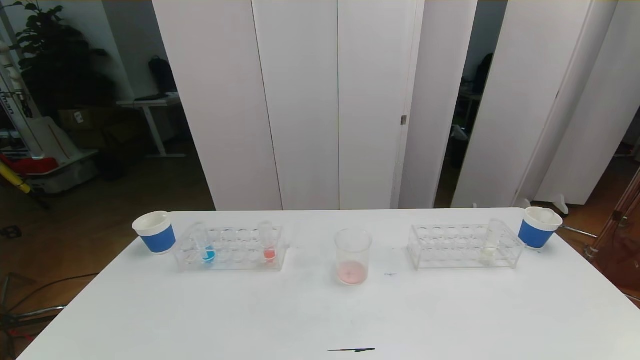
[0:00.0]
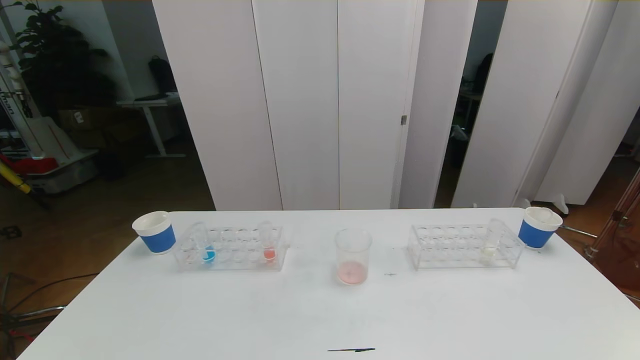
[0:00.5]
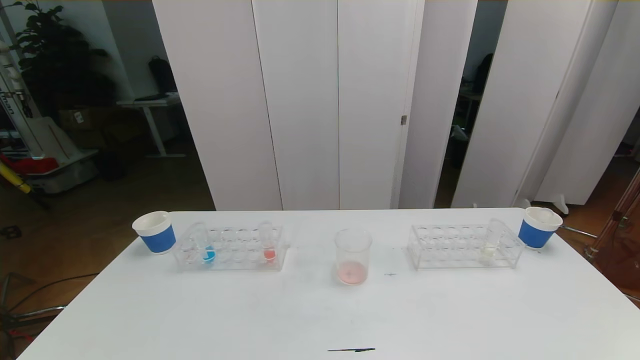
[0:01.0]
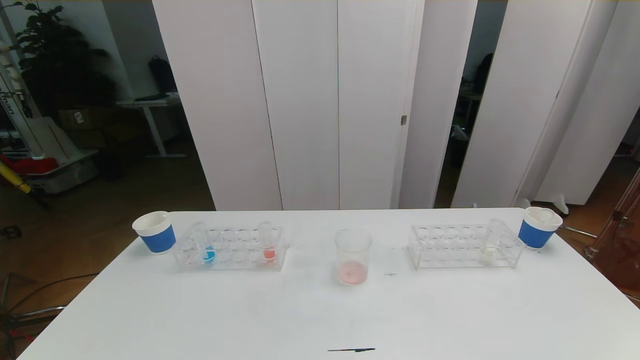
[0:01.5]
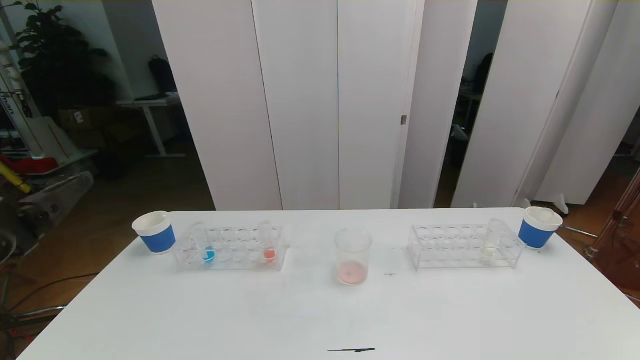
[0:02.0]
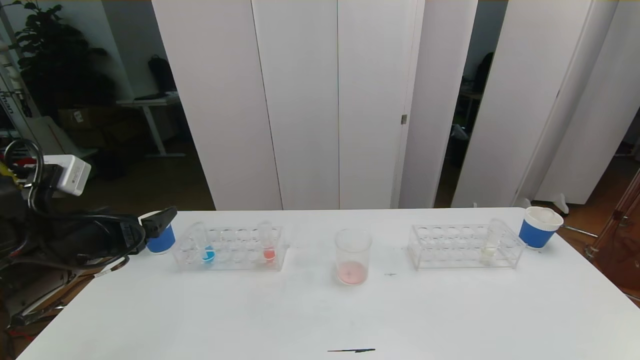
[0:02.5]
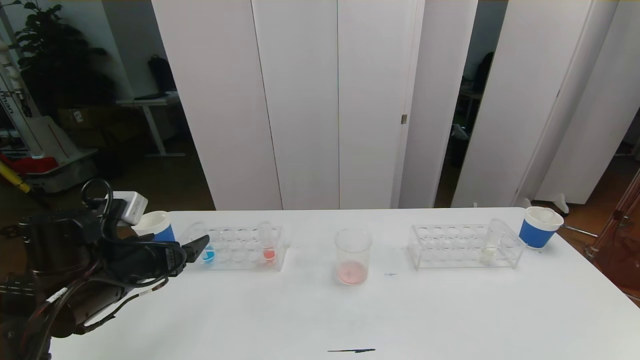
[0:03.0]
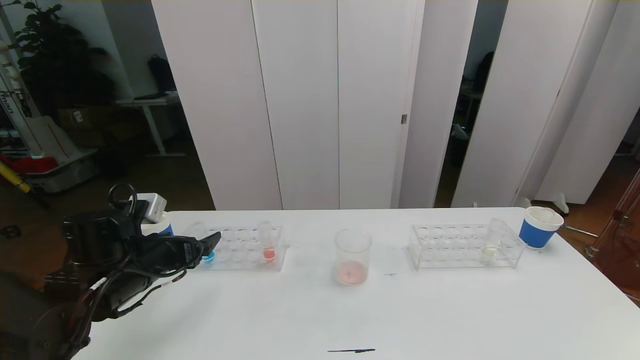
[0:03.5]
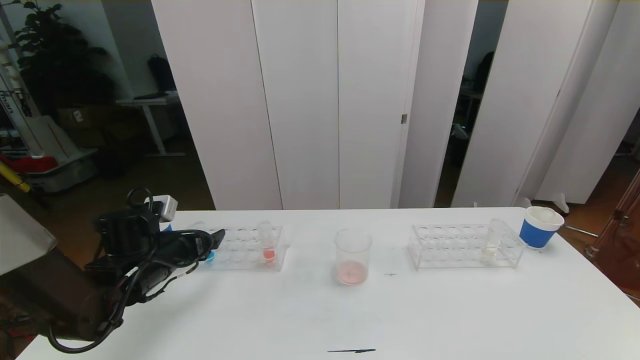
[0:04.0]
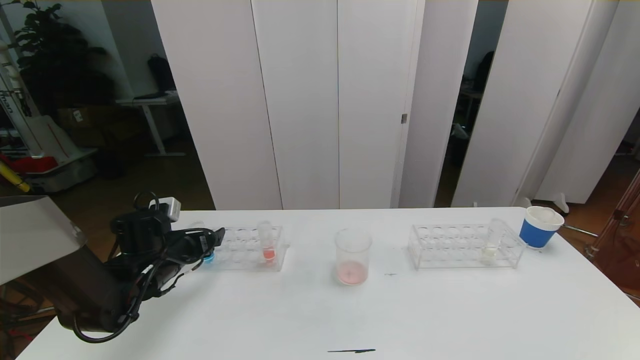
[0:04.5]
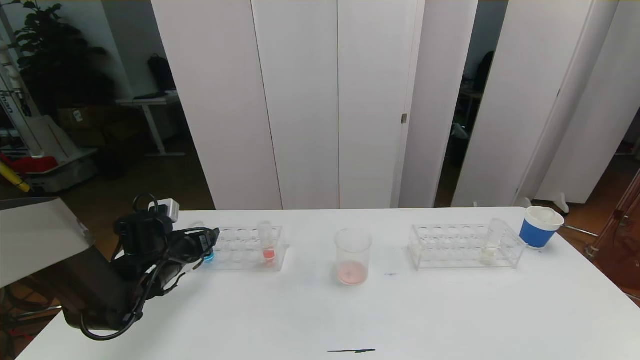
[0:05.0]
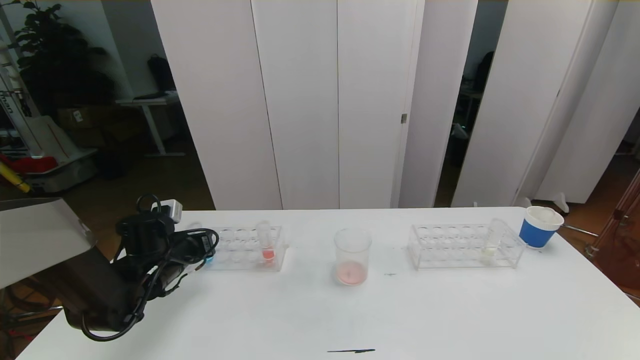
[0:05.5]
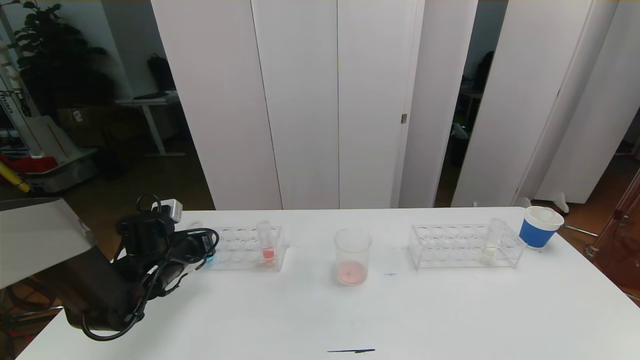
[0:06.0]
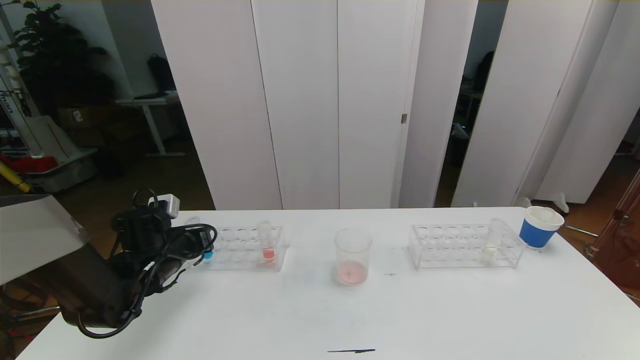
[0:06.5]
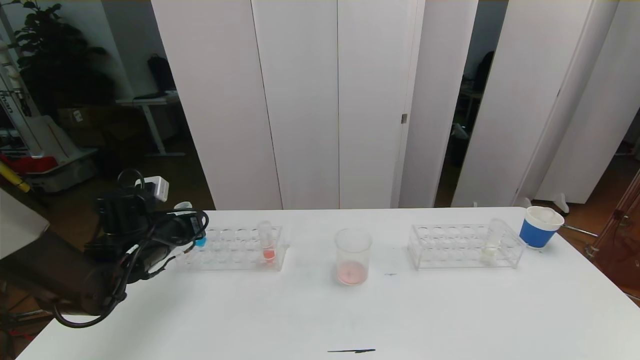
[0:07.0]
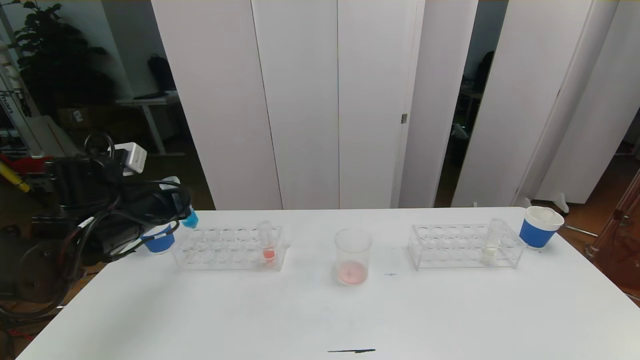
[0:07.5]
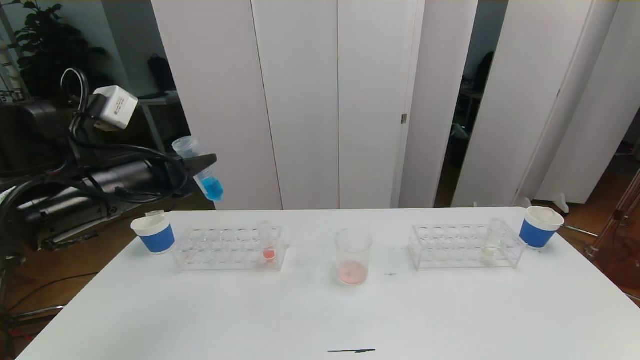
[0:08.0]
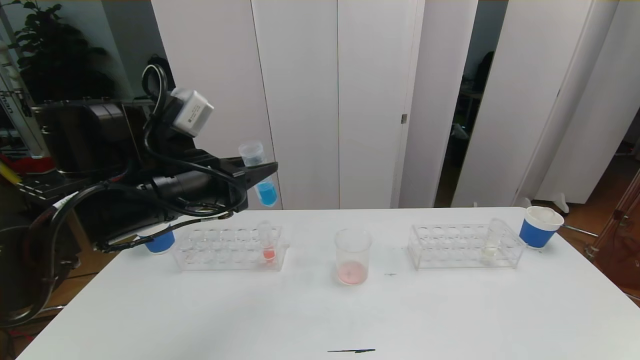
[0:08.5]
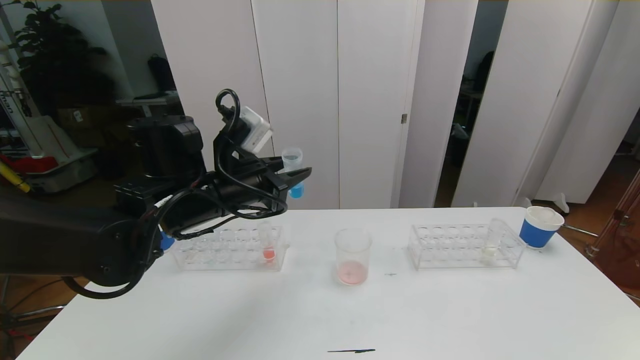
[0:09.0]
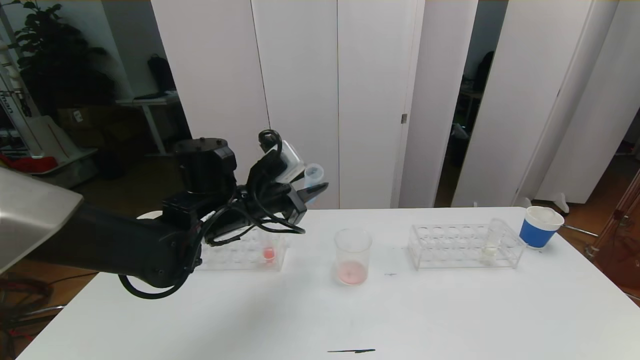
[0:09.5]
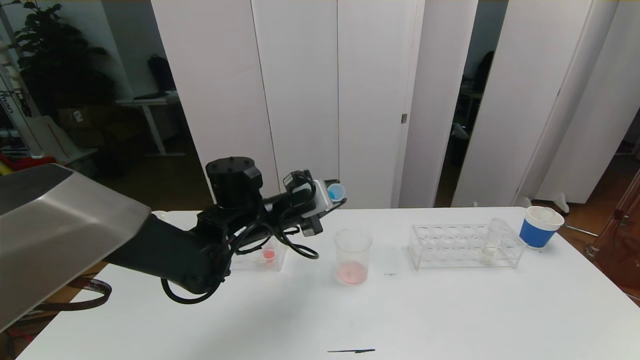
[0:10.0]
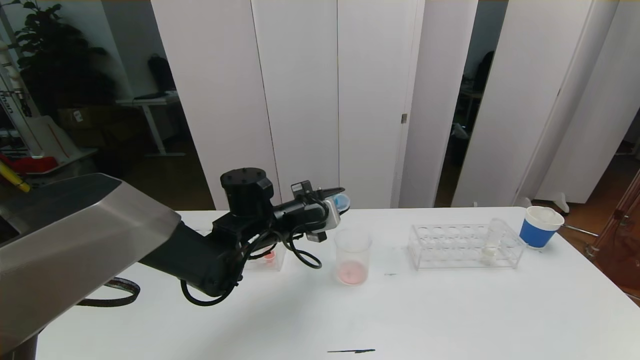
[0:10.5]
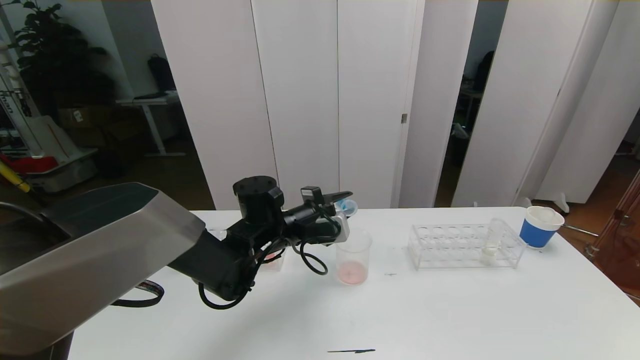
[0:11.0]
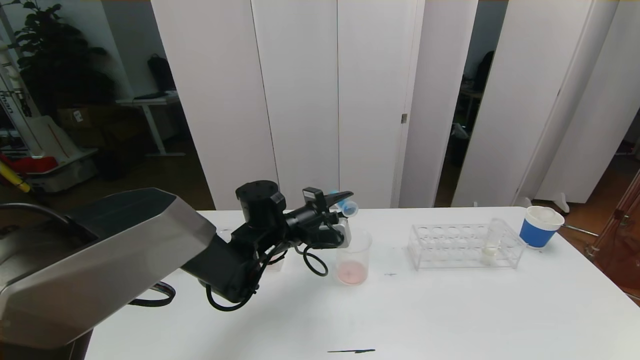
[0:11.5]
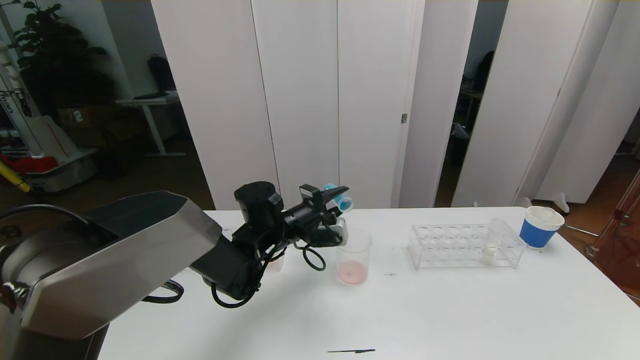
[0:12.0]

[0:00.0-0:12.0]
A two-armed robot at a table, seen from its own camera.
Task of the whole recording: pick up the test tube with red pigment the test tube with blue pigment and the test tube with white pigment by grippers and pour them into the beaker.
0:02.0 to 0:04.0: The left gripper moves forward and downward, approximately 25 cm.
0:04.0 to 0:06.0: The left gripper closes up.
0:06.0 to 0:08.0: The left gripper travels upward and backward by some 20 cm.
0:08.0 to 0:10.0: The left gripper heads to the right, downward and forward, covering about 20 cm.
0:10.0 to 0:12.0: The left gripper goes roughly 5 cm downward.

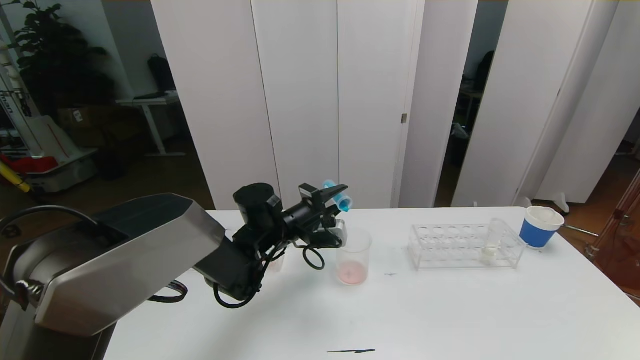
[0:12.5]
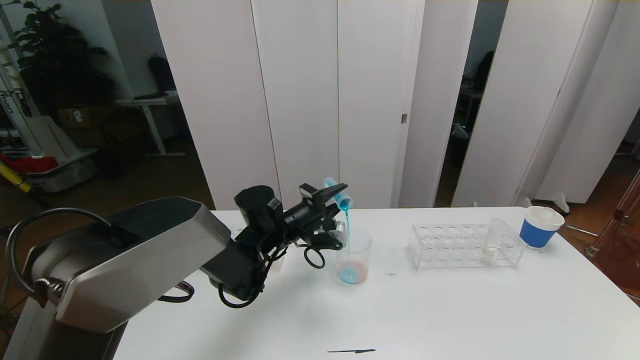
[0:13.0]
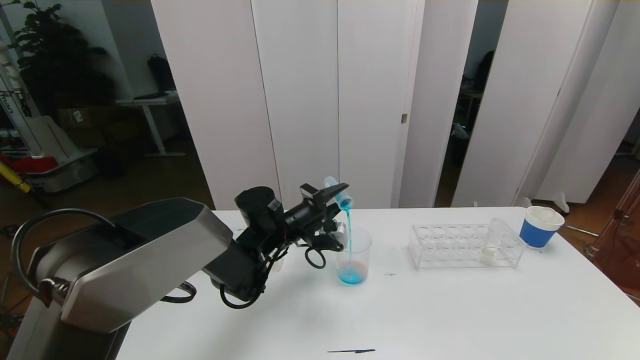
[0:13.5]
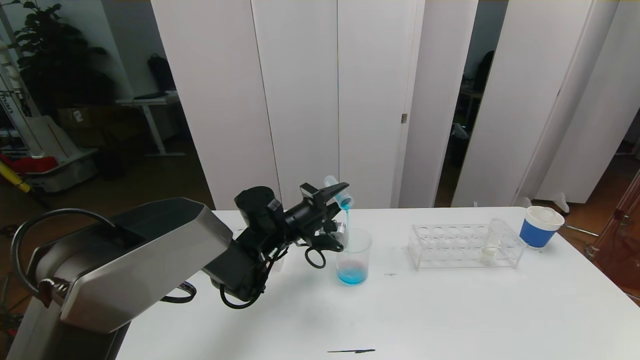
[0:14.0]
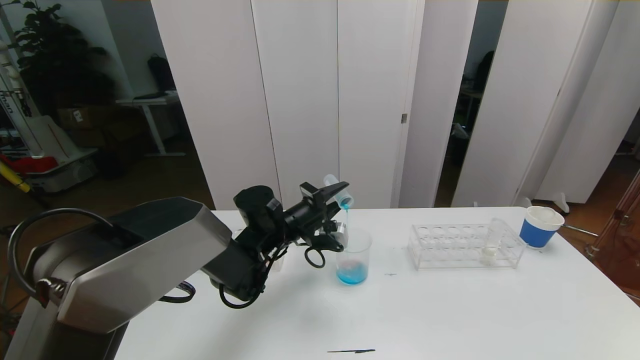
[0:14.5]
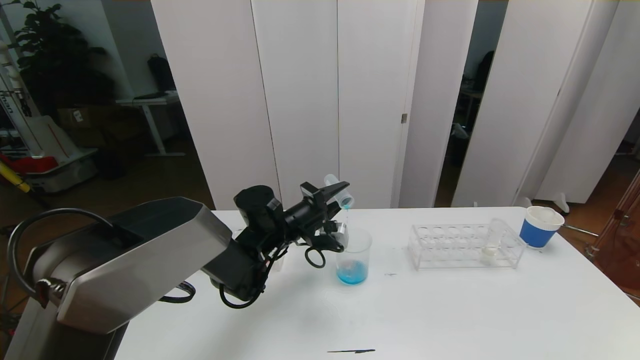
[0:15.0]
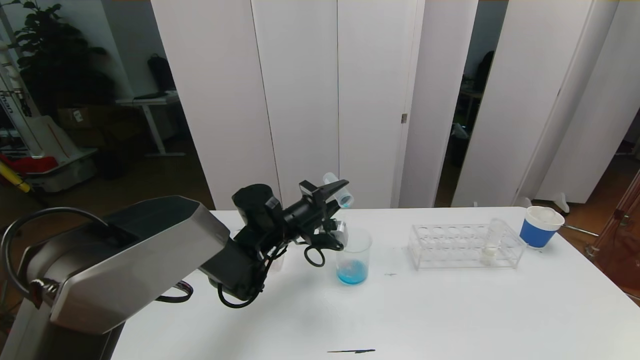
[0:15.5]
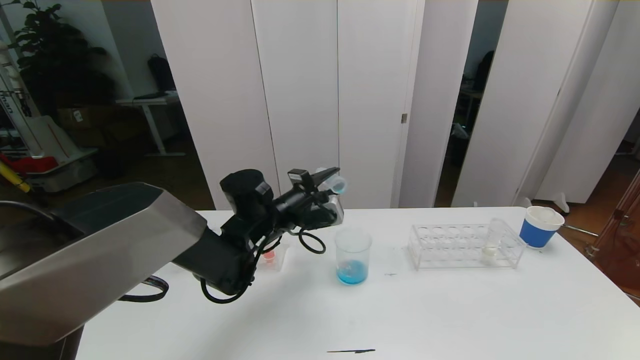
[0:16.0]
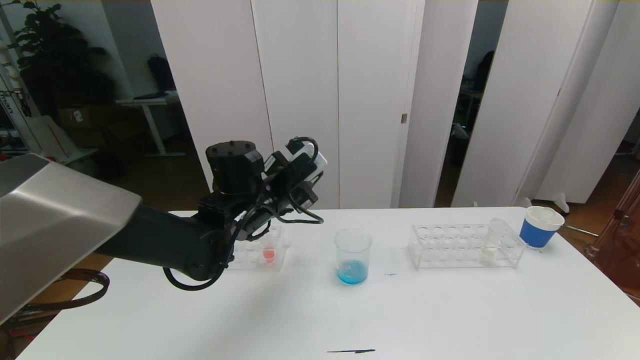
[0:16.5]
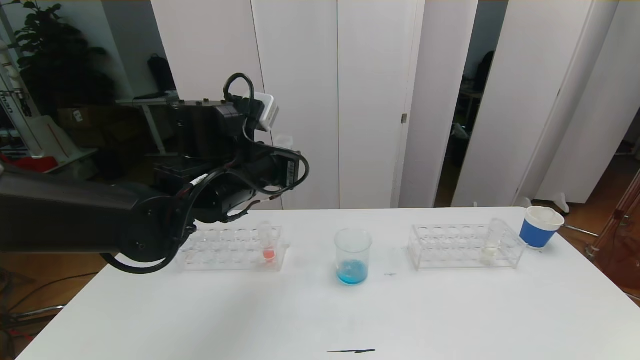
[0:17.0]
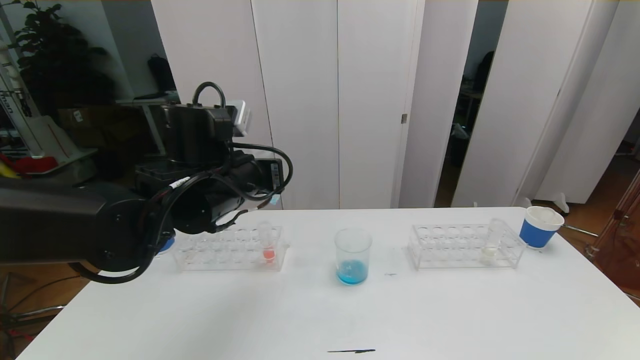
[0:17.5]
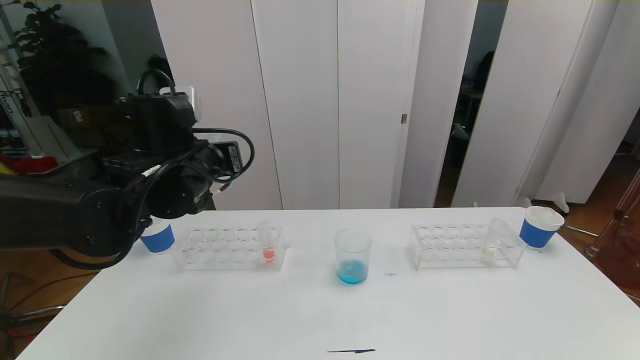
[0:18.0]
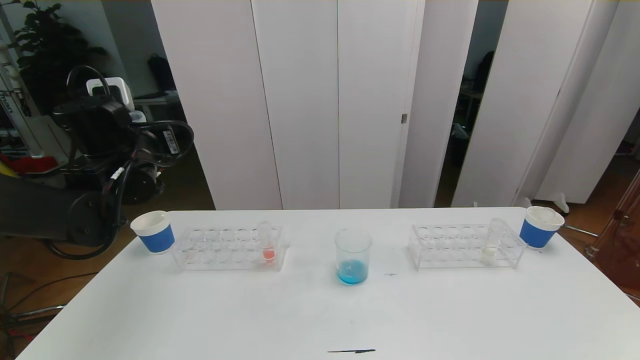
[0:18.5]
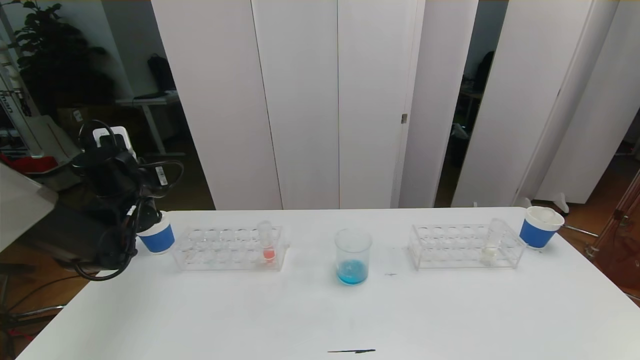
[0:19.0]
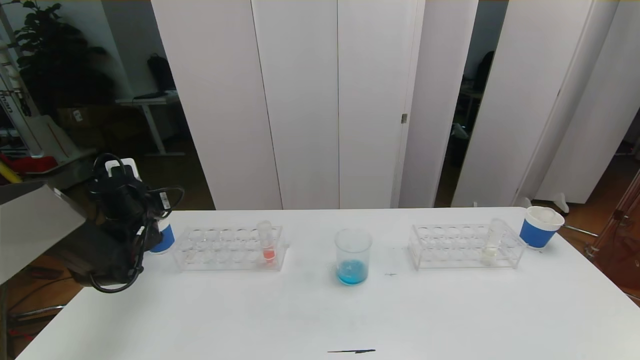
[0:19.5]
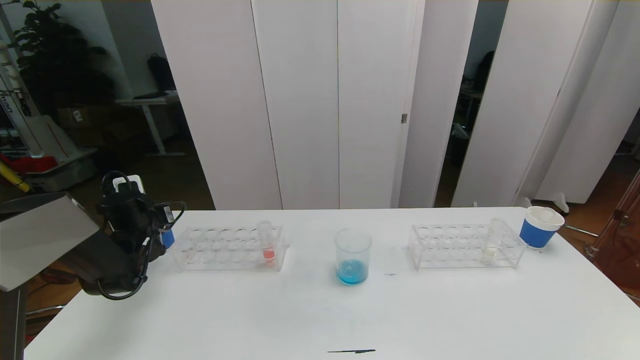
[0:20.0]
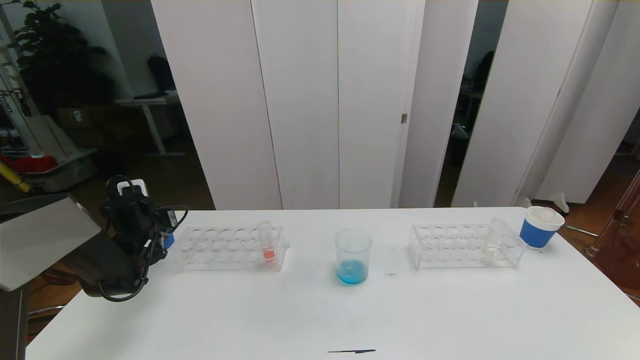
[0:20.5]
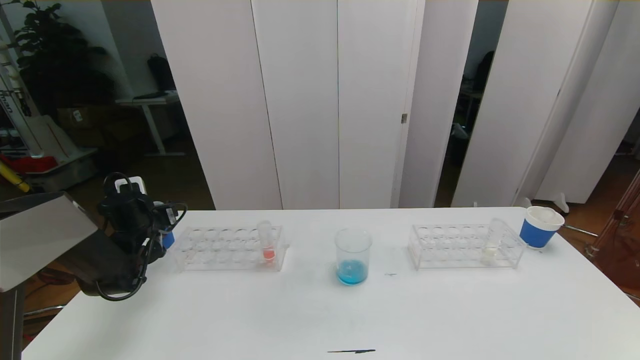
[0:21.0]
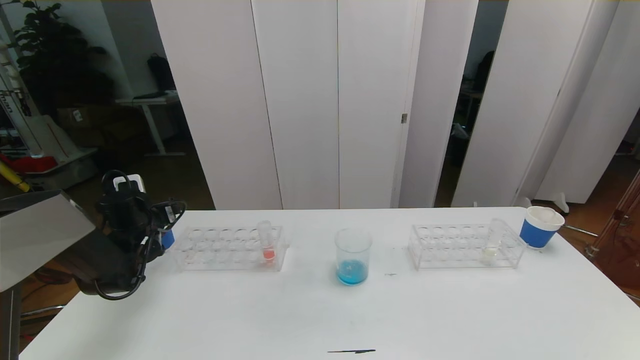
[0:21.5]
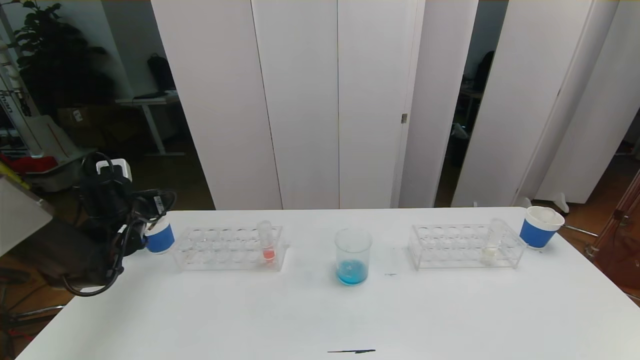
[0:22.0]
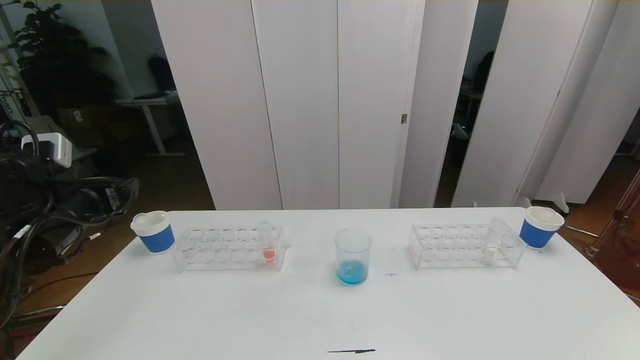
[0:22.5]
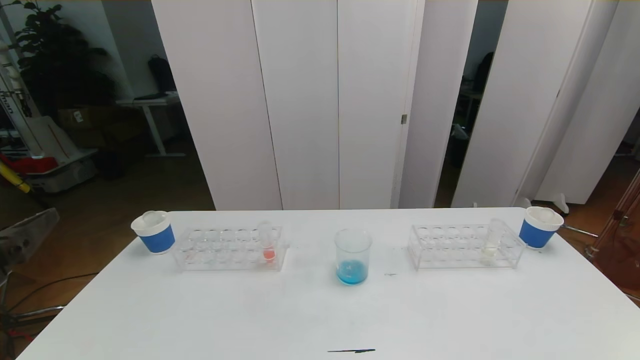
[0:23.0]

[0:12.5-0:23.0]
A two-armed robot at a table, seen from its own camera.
Task of the whole recording: pick up the test tube with red pigment the test tube with blue pigment and the test tube with white pigment by grippers and pour them into the beaker.
0:12.5 to 0:14.5: There are only small adjustments of the grippers.
0:14.5 to 0:16.5: The left gripper heads upward, covering roughly 10 cm.
0:16.5 to 0:19.0: The left gripper goes about 20 cm to the left.
0:19.0 to 0:21.0: The left gripper goes approximately 10 cm downward, and opens.
0:21.0 to 0:23.0: The left gripper shifts approximately 40 cm backward and upward.
